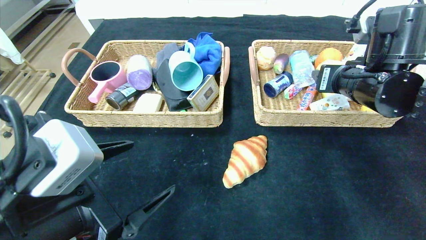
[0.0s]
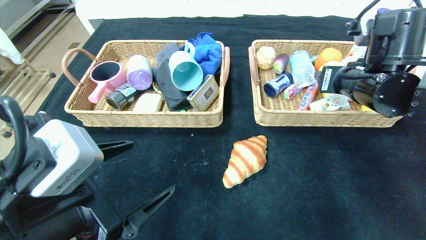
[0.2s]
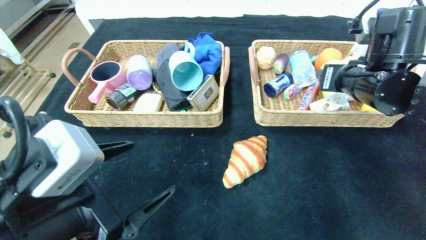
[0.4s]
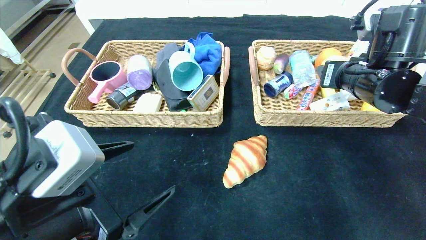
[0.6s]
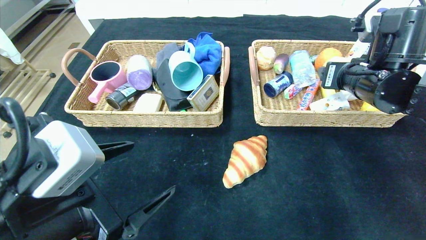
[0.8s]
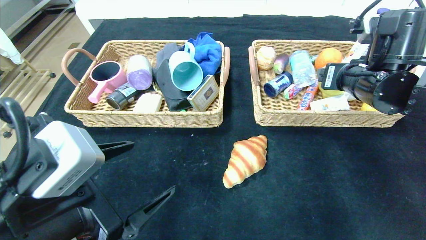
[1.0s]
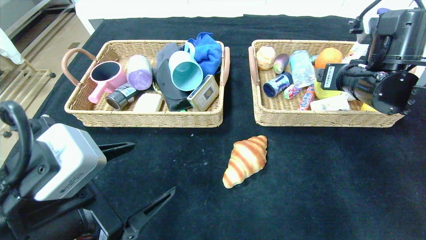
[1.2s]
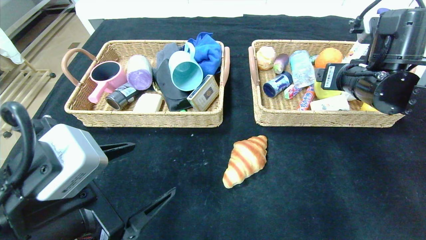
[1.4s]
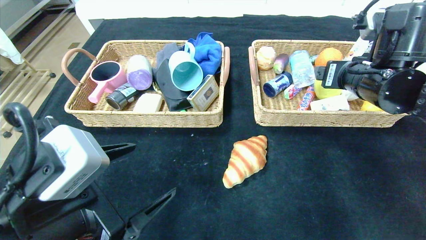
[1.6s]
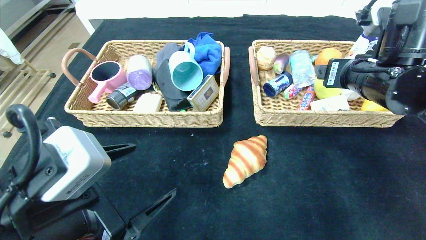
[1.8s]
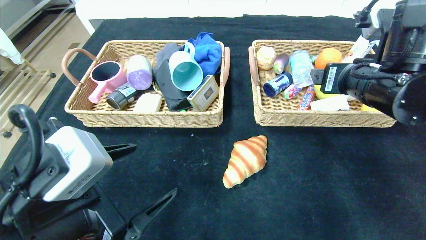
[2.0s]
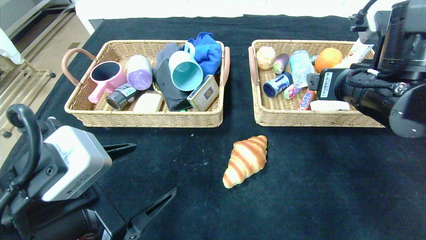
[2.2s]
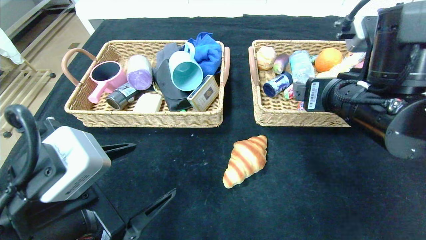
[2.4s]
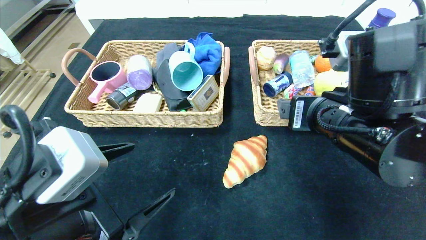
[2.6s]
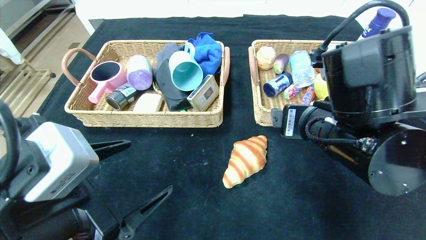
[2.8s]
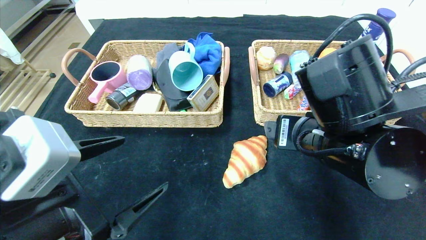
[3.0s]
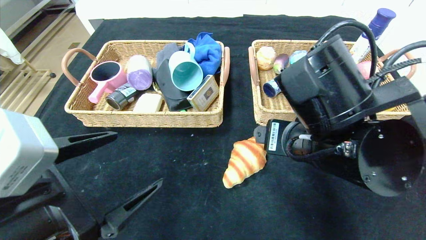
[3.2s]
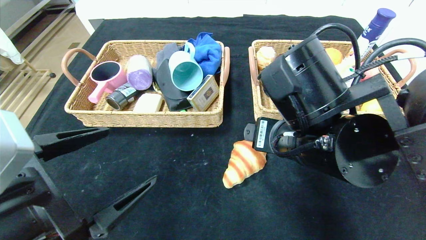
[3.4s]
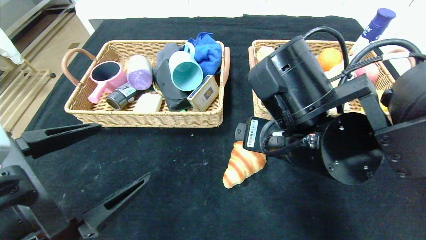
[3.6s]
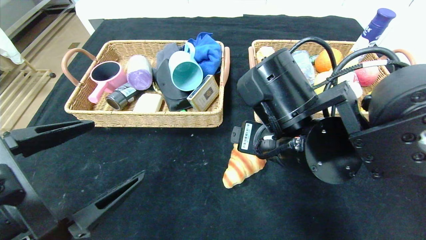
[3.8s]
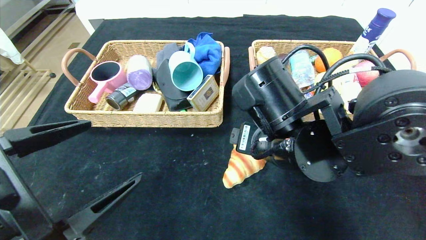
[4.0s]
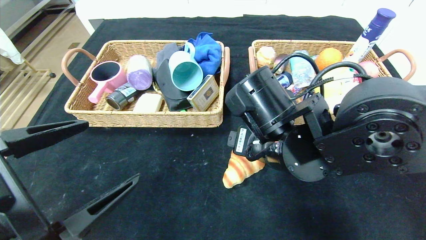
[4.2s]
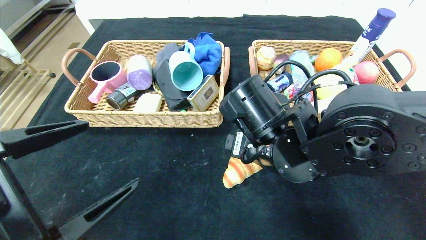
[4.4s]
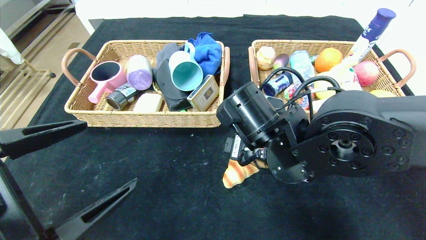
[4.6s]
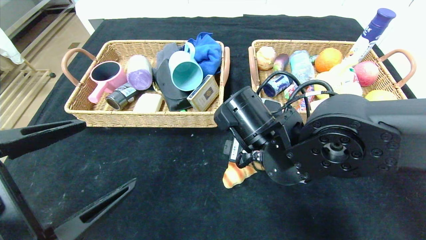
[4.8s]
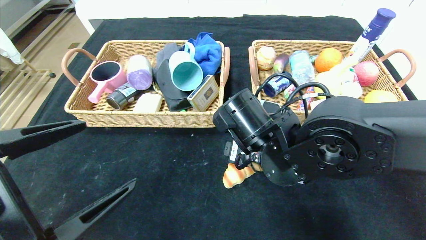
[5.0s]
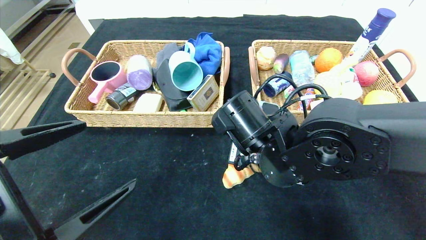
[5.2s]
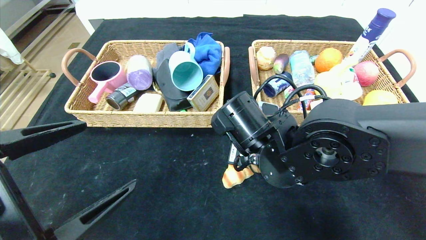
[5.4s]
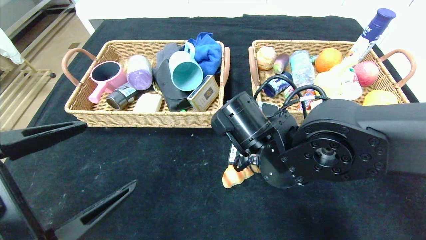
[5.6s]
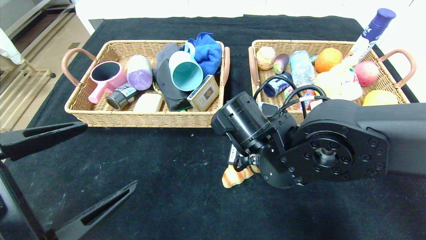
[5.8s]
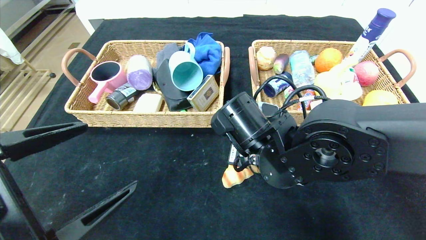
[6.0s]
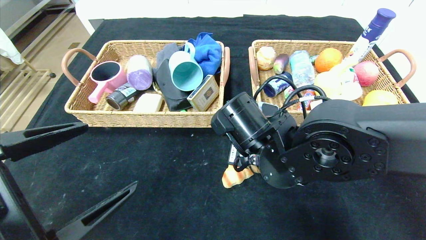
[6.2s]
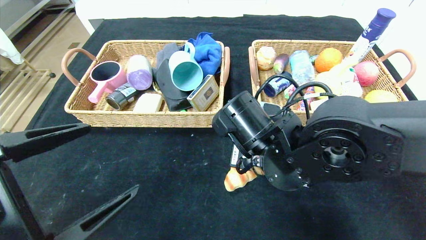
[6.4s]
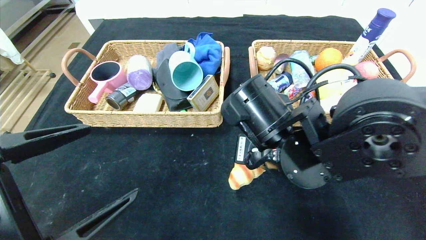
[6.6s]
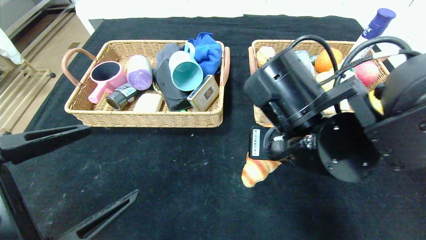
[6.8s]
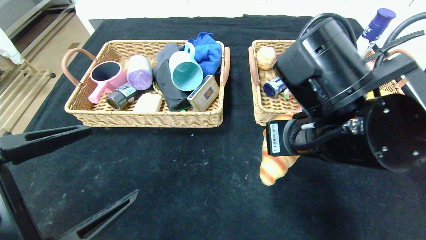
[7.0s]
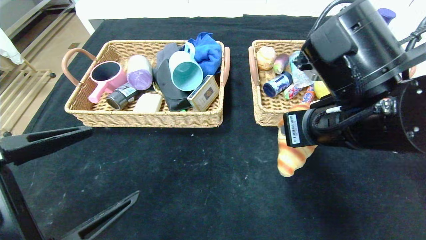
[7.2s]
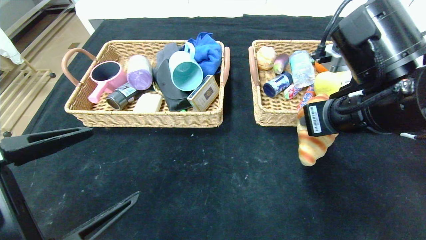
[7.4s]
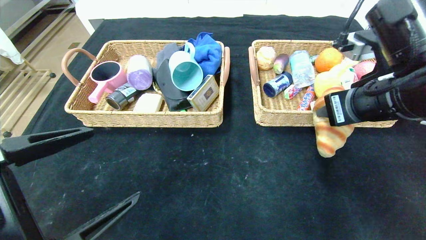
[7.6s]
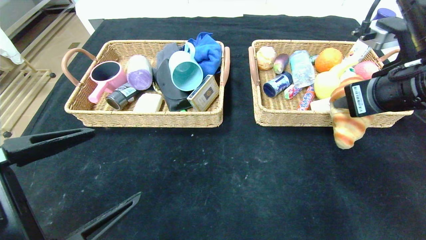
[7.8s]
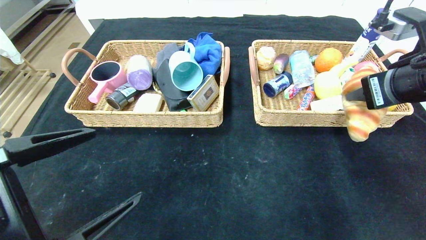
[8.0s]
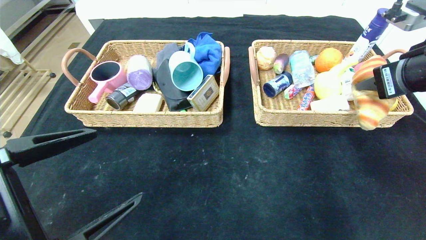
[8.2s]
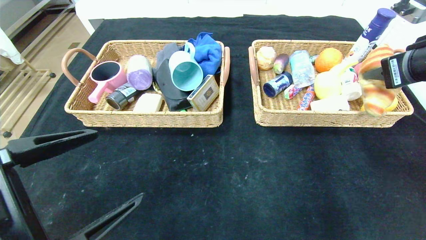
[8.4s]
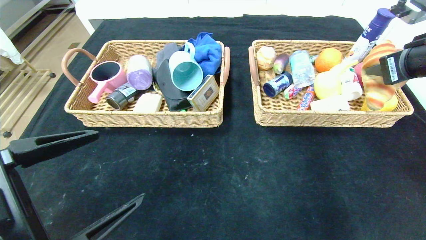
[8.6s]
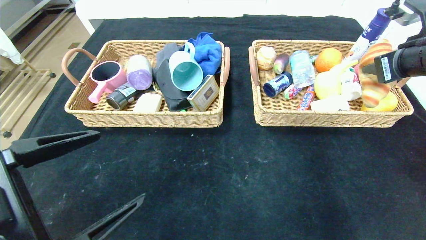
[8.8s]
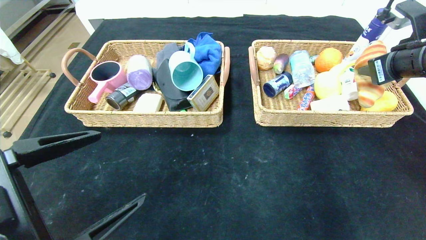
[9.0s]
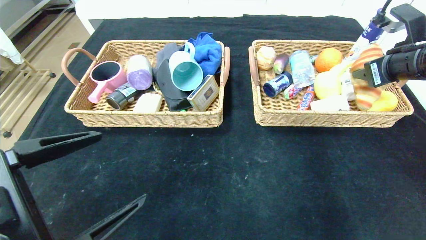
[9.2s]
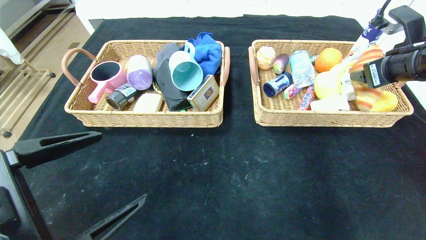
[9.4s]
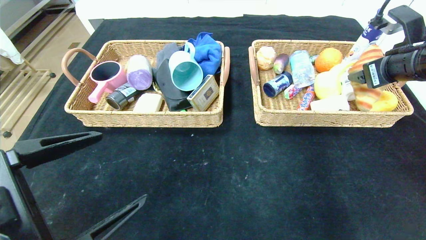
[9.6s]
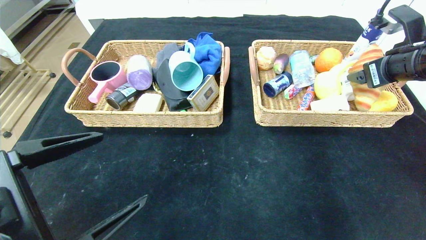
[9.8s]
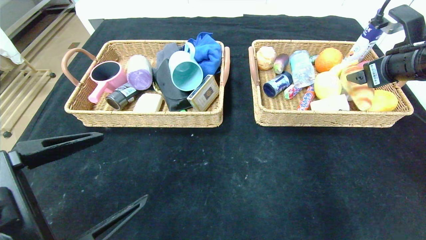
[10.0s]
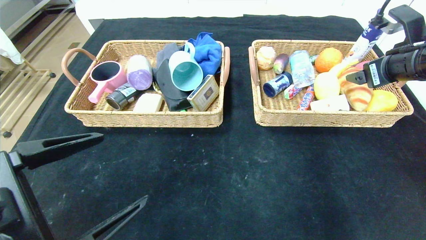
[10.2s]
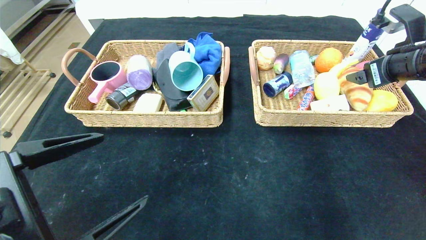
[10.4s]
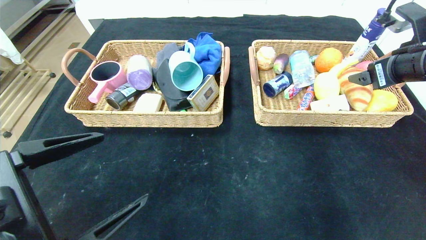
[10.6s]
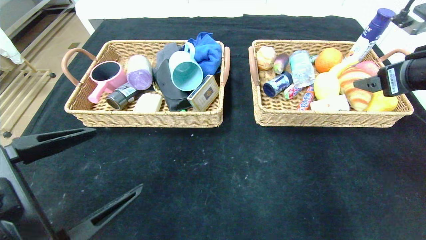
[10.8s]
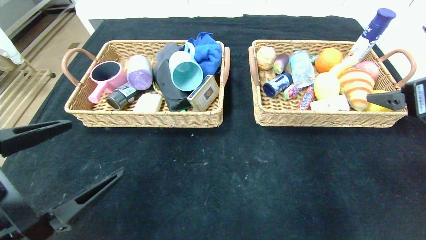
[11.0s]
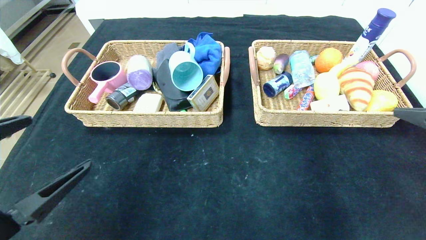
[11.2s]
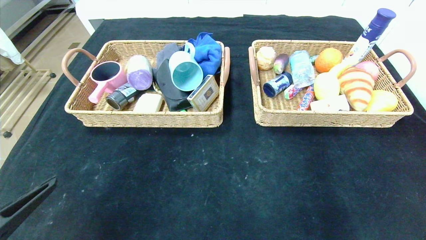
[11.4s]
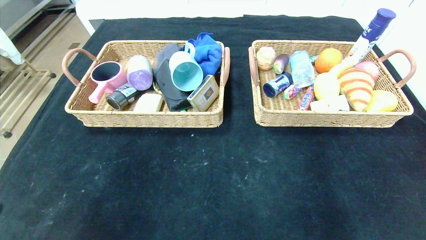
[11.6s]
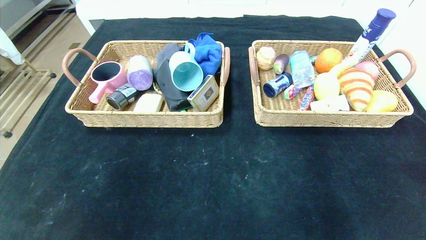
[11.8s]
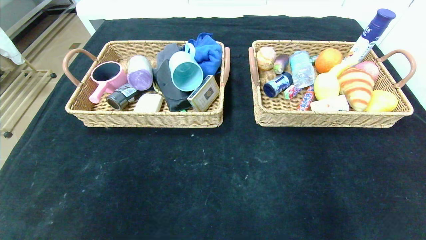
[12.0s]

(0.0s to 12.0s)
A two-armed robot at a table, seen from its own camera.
Step, 1.8s - 10.2s: Grasp the croissant and put it in the right basket.
0.0s - 1.6s: The right gripper opens.
1.6s - 3.0s: The right gripper is displaced to the left and backward by roughly 15 cm.
3.0s - 4.4s: The right gripper is displaced to the left by roughly 5 cm.
4.4s - 6.0s: The right gripper closes up.
6.0s - 7.6s: The right gripper travels to the right and upward by roughly 20 cm.
7.6s - 9.0s: The right gripper is displaced to the right and forward by approximately 15 cm.
9.0s - 10.4s: The right gripper opens up.
10.4s - 12.0s: The left gripper moves backward and to the left, about 20 cm. Meanwhile the right gripper is displaced backward by some 40 cm.

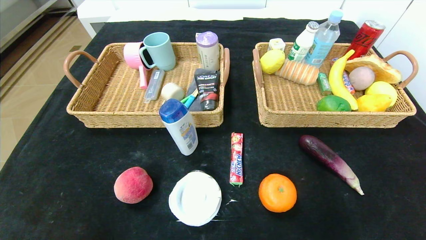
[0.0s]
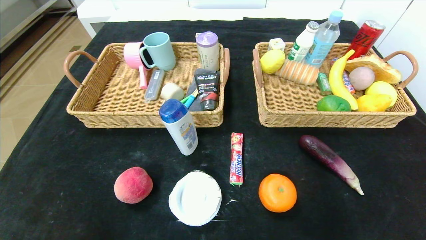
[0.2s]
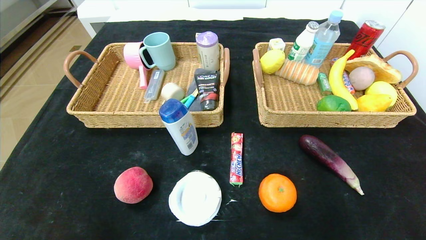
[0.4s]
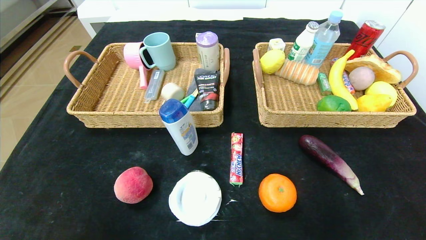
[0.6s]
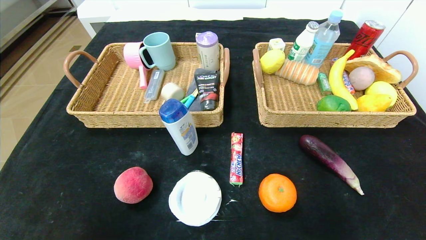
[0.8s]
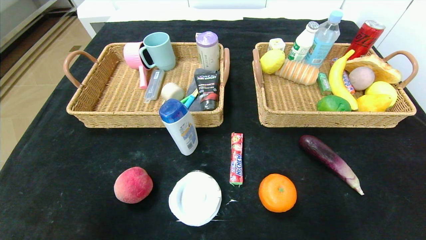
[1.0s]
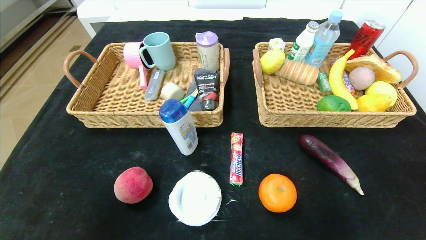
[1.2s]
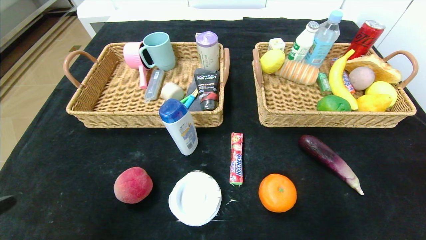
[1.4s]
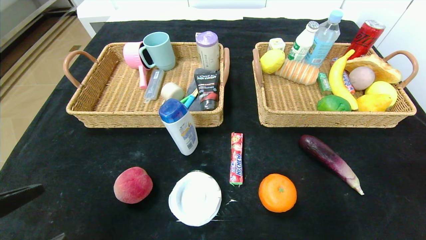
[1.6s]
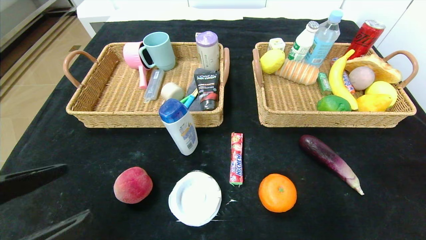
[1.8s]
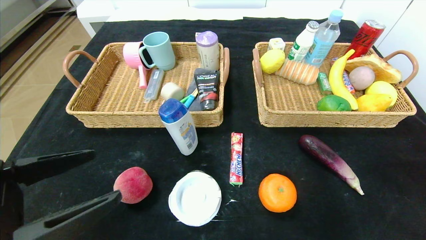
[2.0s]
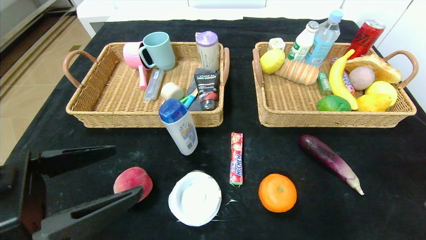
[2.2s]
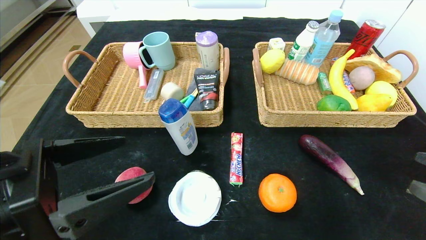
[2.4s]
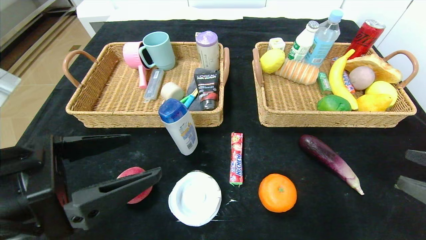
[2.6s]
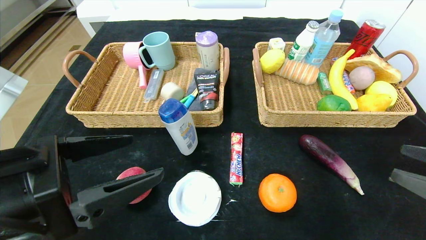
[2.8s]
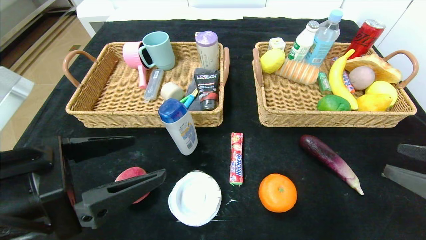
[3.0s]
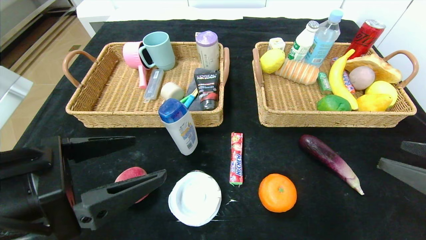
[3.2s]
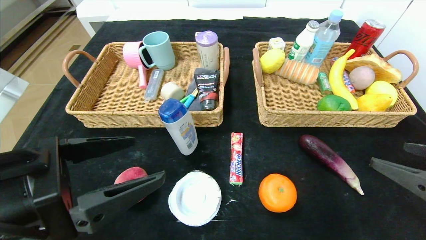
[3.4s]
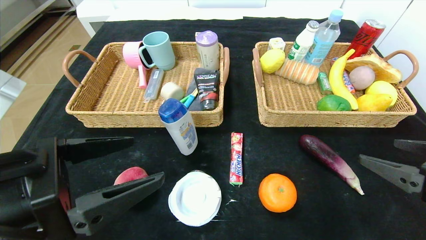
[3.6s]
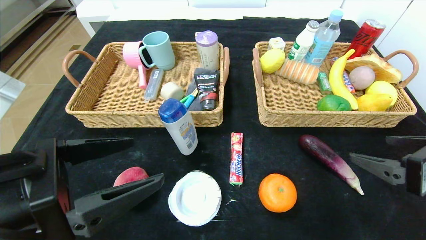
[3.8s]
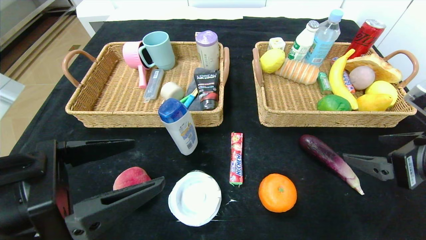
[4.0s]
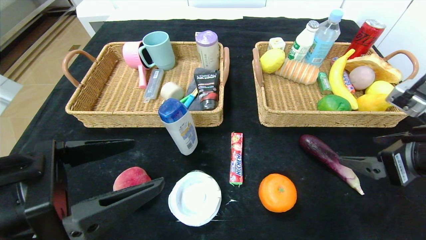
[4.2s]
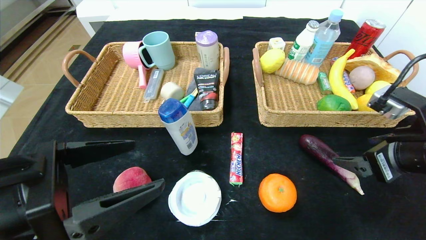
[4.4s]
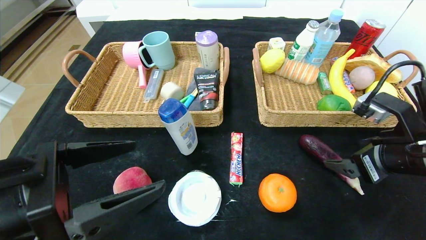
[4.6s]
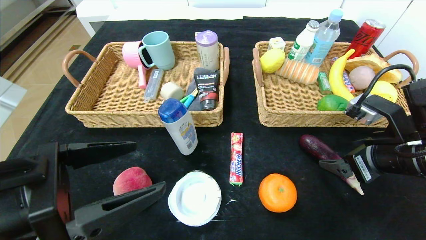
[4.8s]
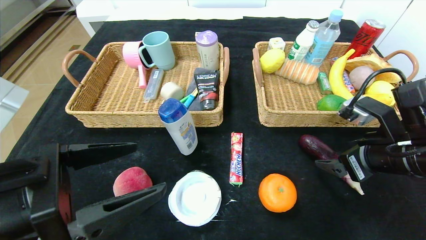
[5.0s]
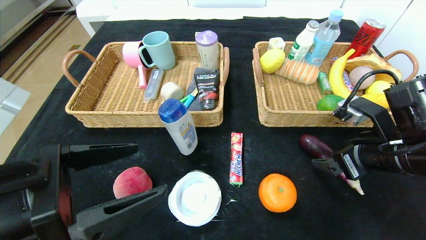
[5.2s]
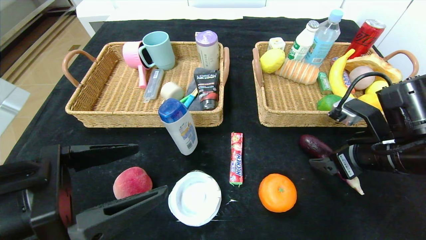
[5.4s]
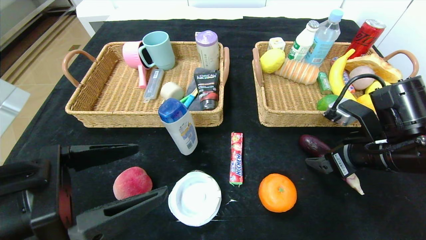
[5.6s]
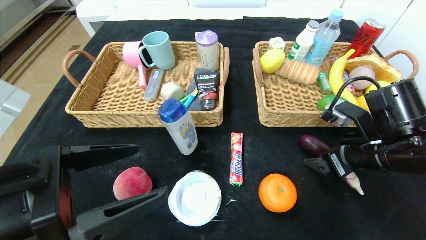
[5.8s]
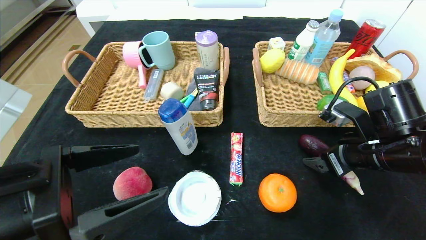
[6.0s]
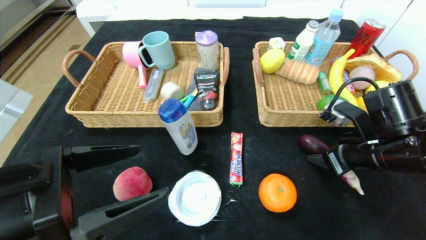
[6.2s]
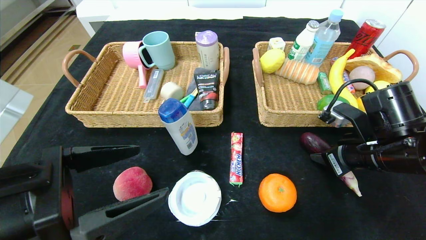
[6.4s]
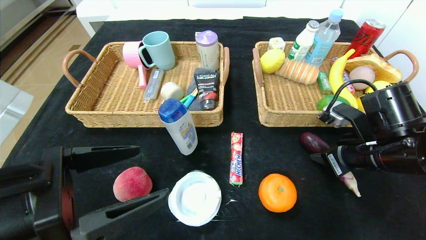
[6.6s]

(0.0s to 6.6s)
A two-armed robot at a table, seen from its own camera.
0.0s - 1.6s: The left gripper moves upward and forward, about 15 cm.
1.6s - 3.2s: The left gripper is displaced forward and to the right by approximately 10 cm. The right gripper moves forward, some 10 cm.
3.2s - 5.0s: The right gripper heads forward and to the left, covering approximately 15 cm.
5.0s - 6.6s: The right gripper closes up.
